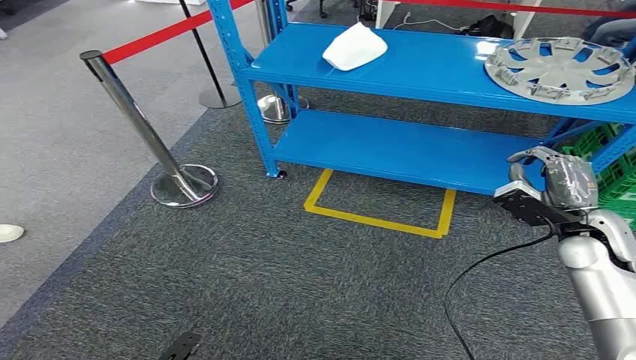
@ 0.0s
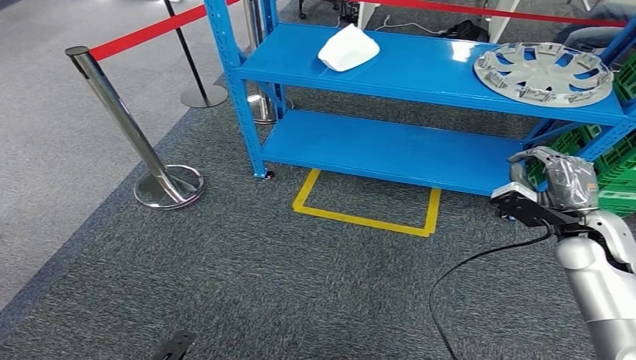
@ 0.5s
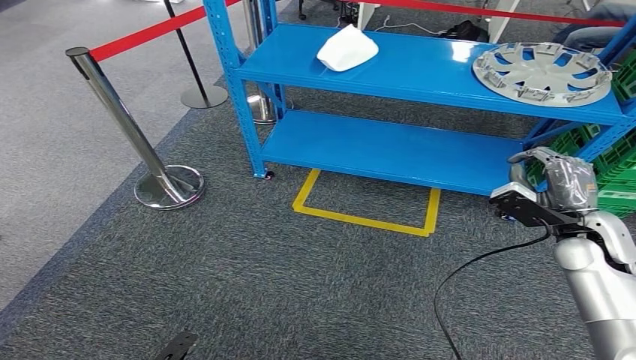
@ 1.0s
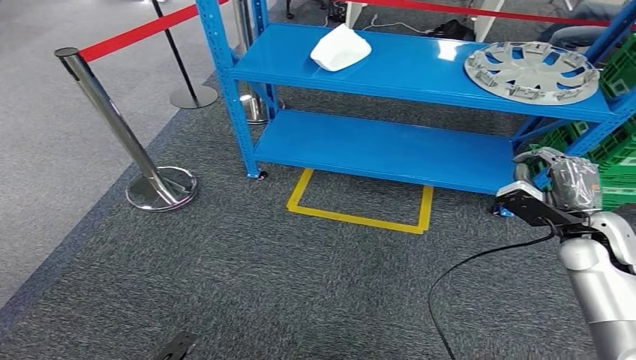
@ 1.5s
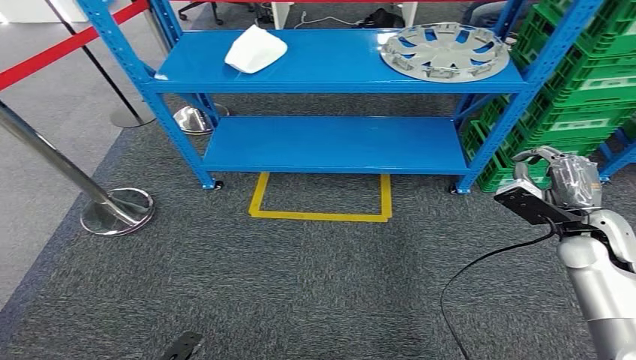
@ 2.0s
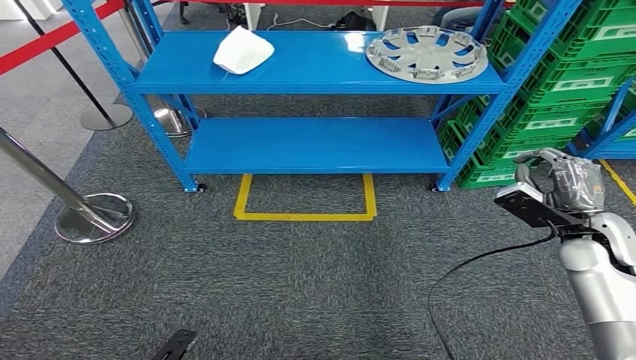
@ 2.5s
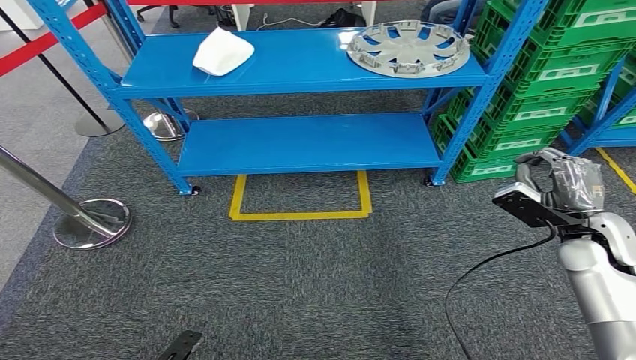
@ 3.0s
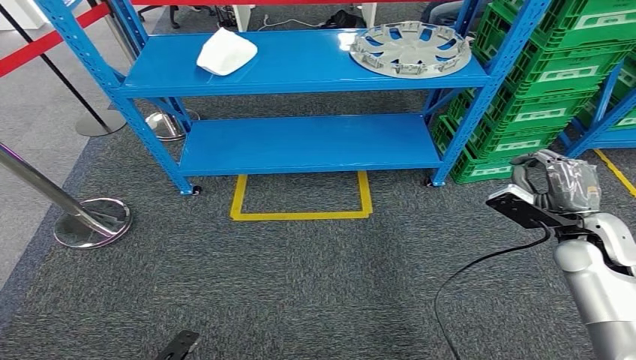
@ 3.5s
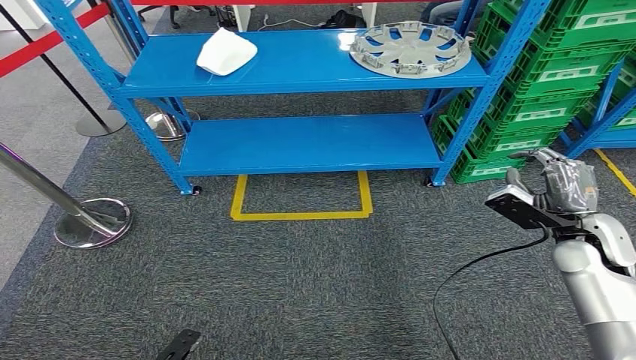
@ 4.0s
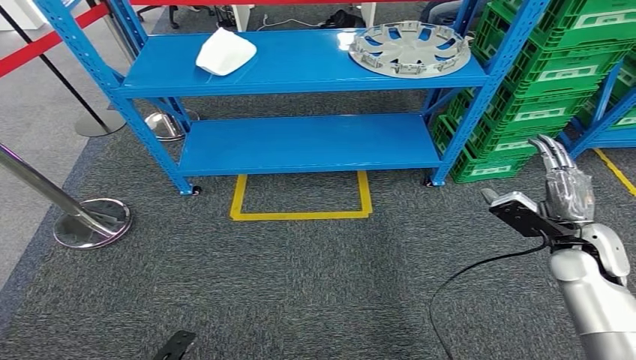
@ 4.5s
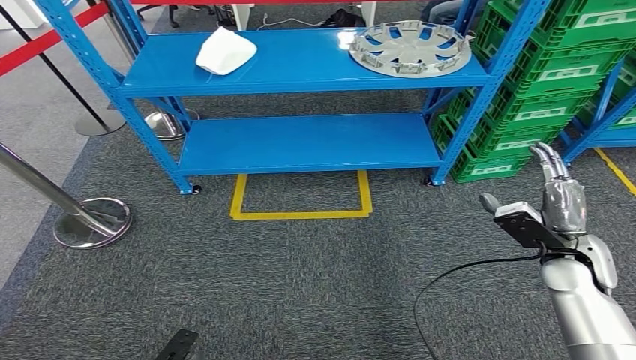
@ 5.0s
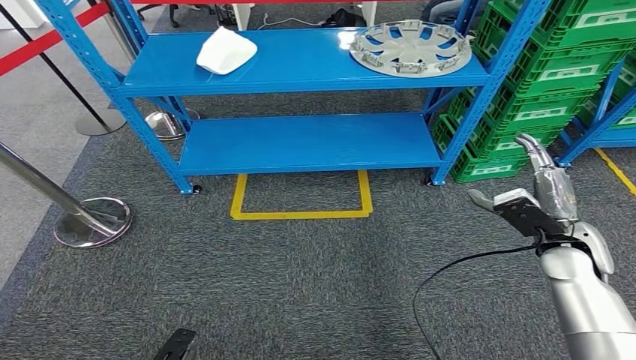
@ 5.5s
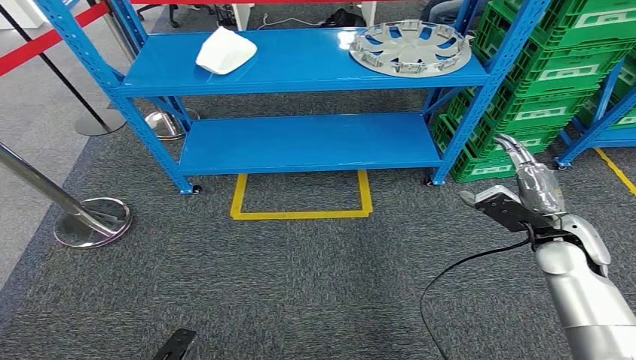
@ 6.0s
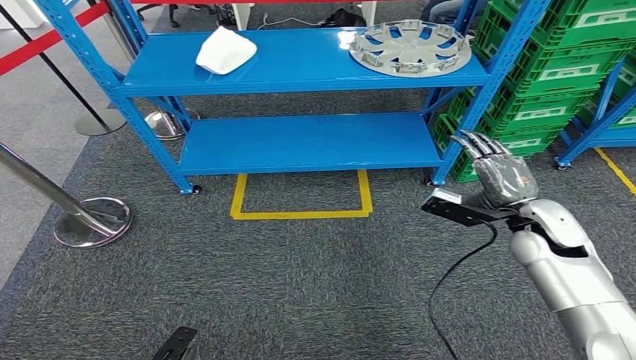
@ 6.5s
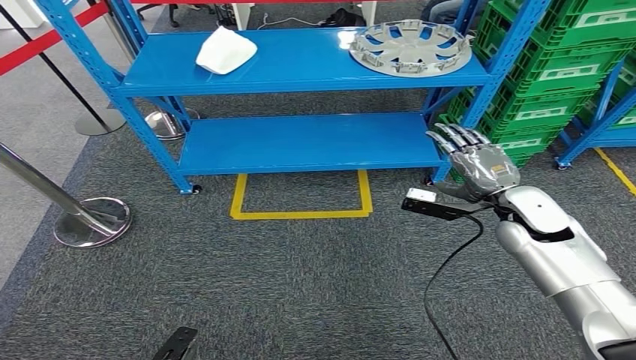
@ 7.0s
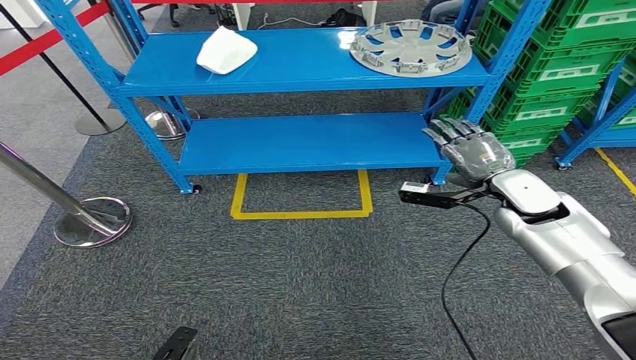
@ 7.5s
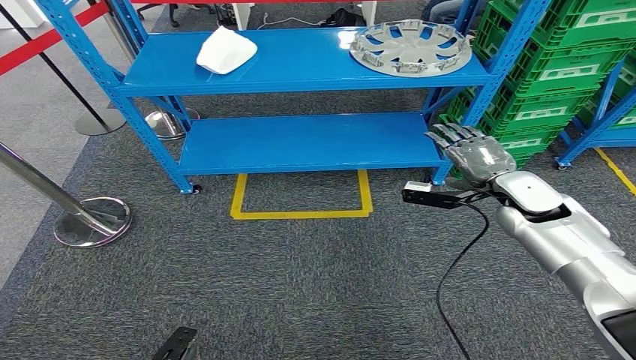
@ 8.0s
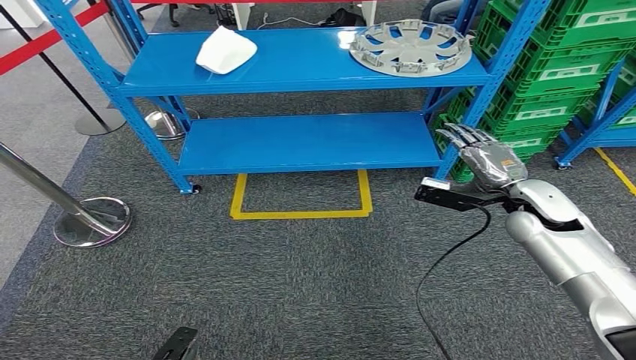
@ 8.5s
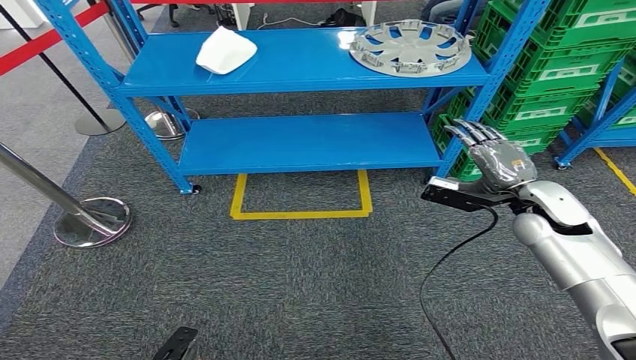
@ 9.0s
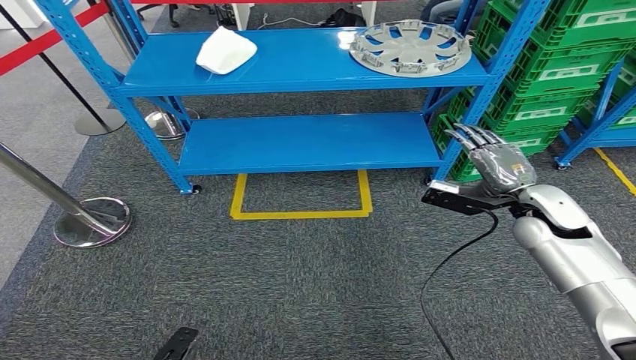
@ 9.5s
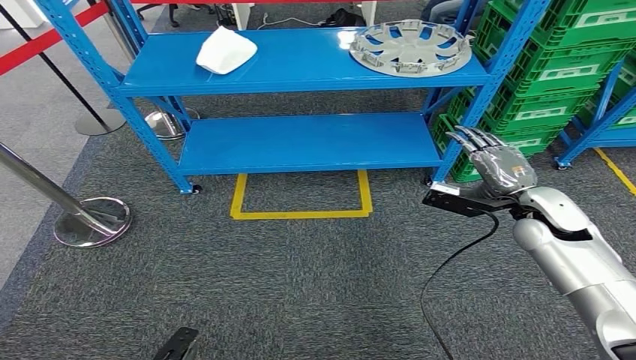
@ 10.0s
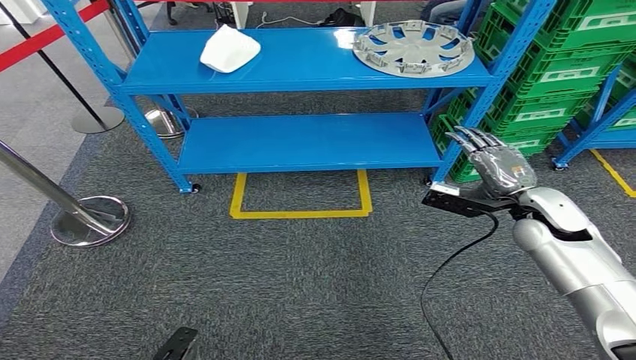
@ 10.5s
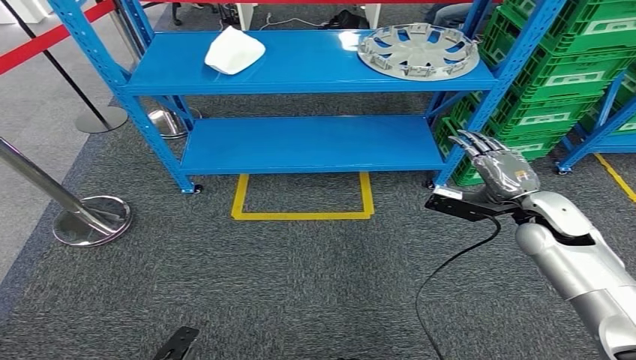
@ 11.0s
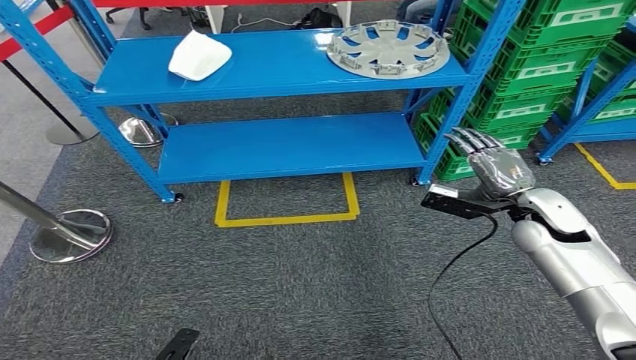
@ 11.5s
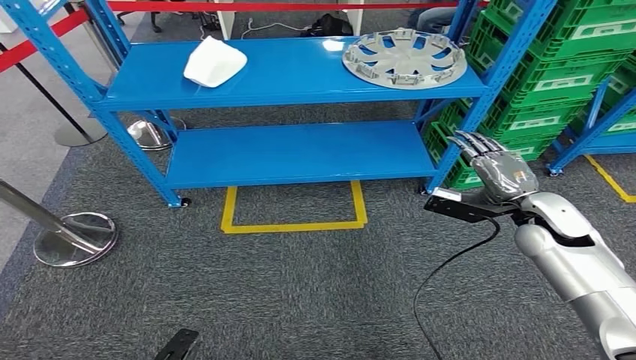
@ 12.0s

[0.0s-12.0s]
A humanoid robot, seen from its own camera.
4.0s to 6.0s: The hands move only a little.
6.0s to 8.0s: The right hand moves forward, about 10 cm.

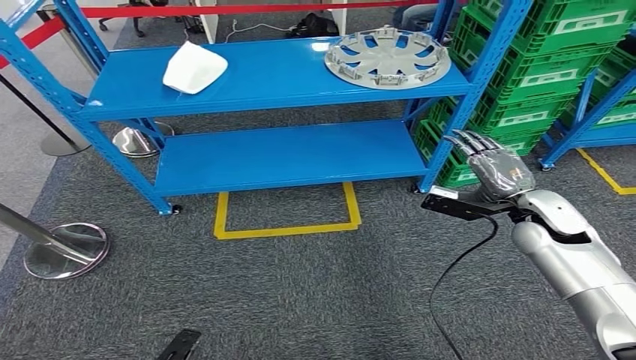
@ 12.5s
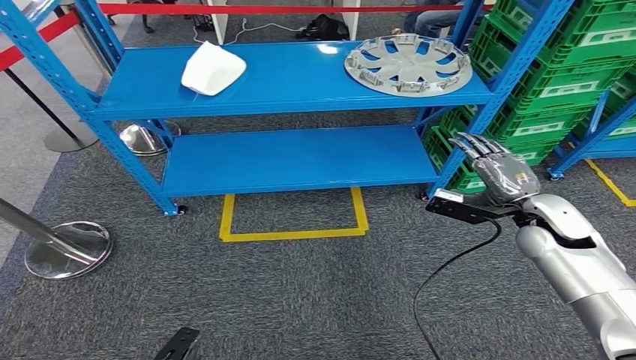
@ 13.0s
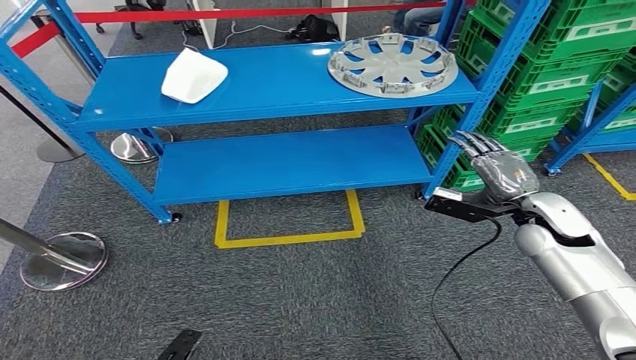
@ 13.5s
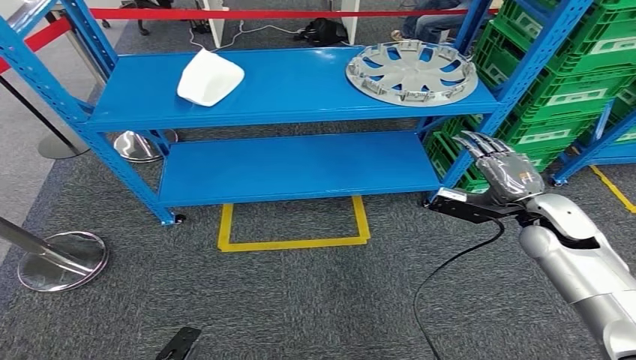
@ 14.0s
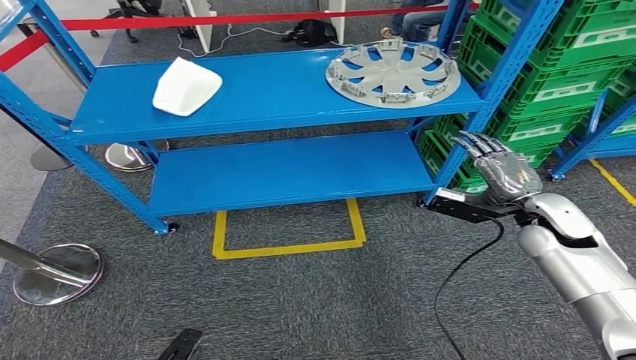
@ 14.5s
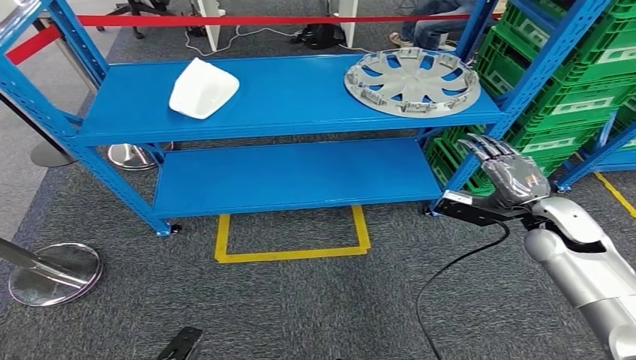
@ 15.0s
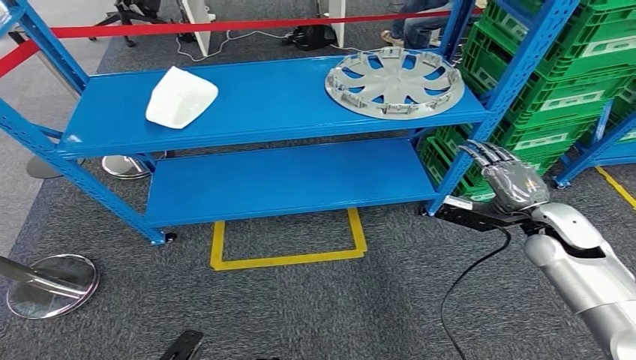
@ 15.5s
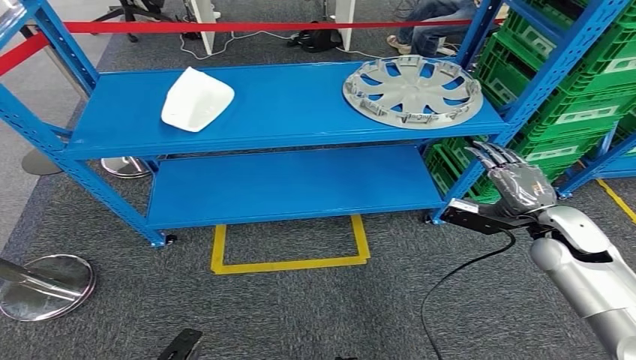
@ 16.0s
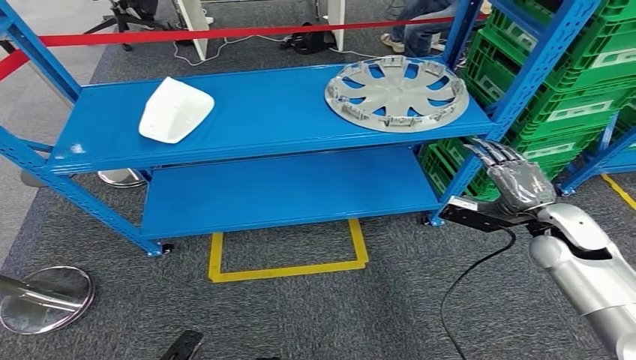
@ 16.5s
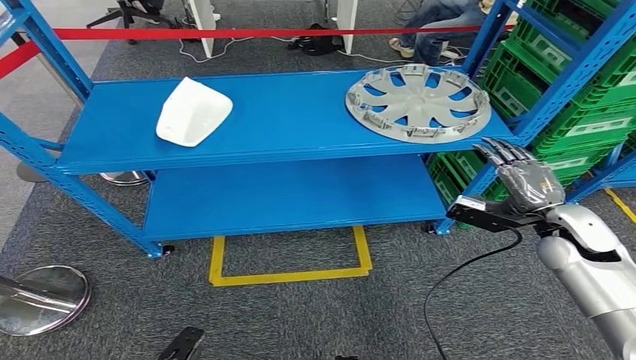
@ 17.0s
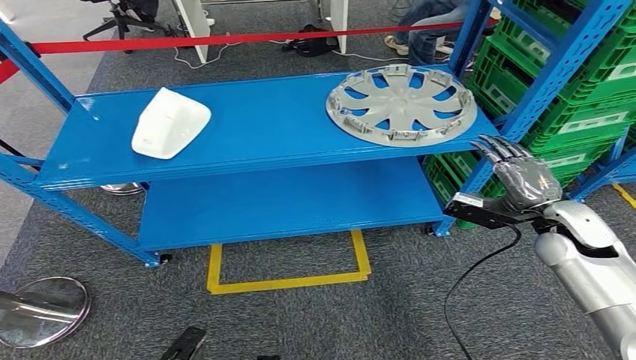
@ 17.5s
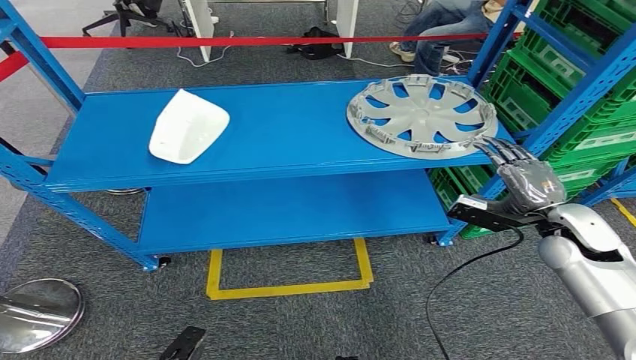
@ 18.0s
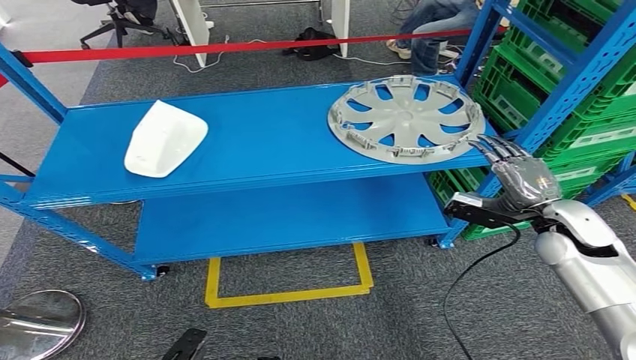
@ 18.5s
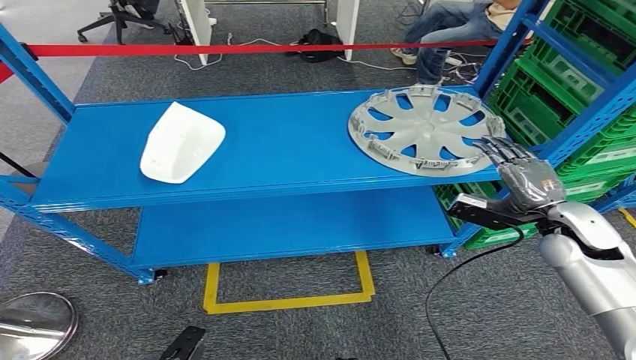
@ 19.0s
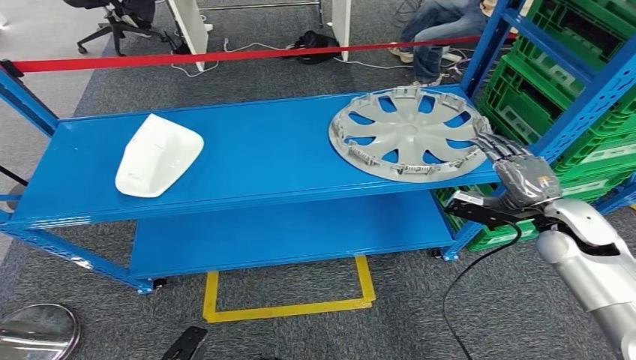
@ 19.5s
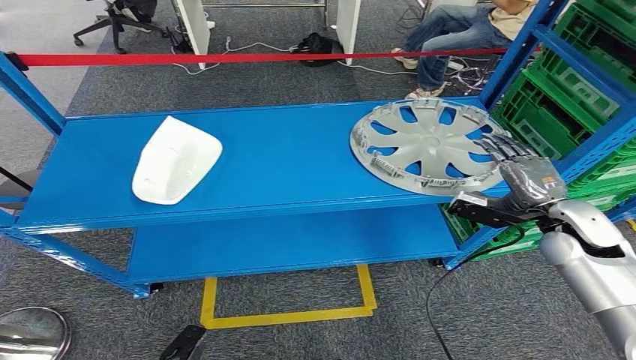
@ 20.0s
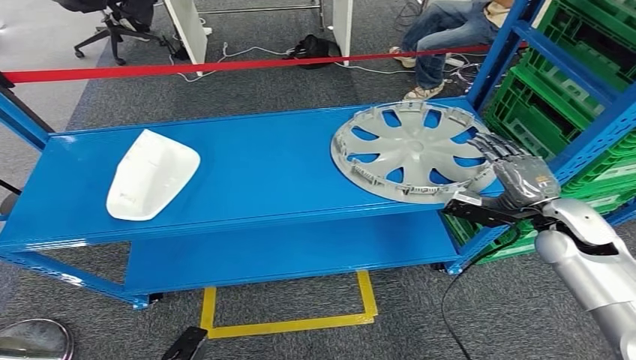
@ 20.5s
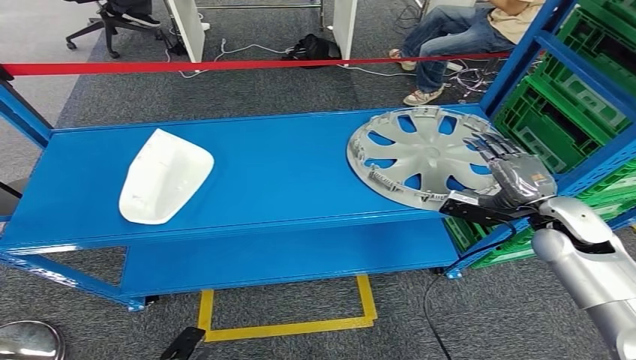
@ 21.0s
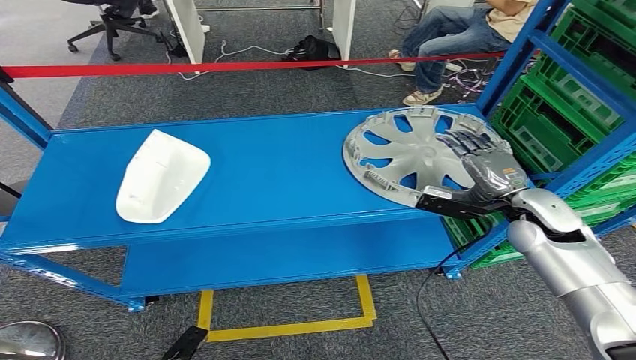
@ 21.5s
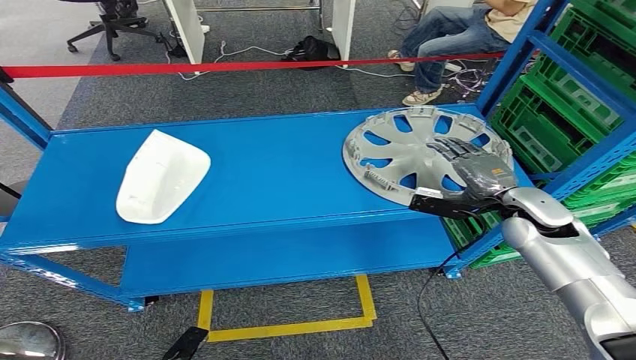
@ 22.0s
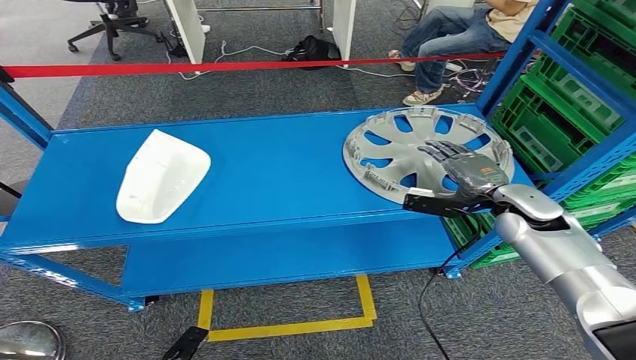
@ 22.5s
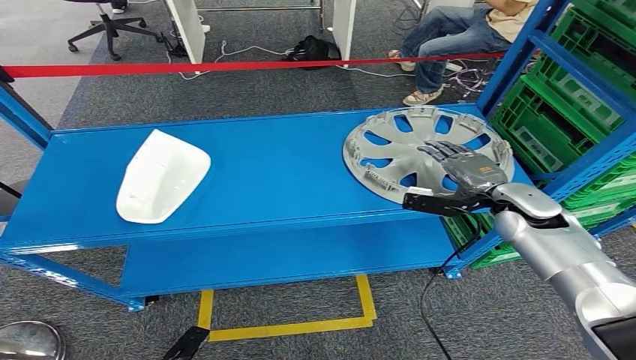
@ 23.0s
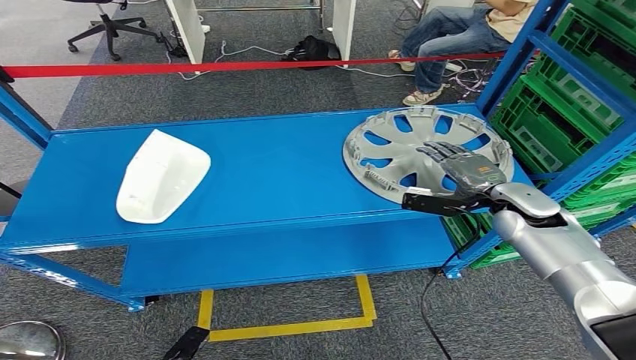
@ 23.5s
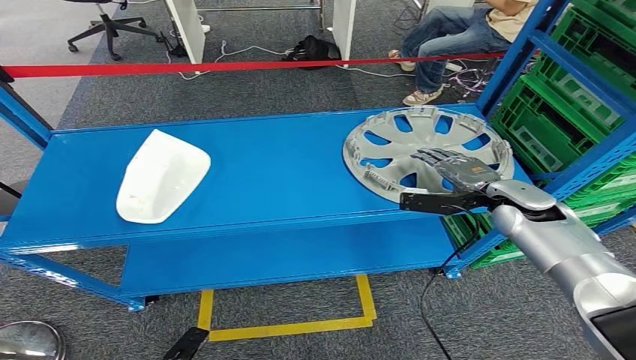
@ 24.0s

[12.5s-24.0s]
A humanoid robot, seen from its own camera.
22.0s to 24.0s: The hands stay close to where they were, moving slightly.
